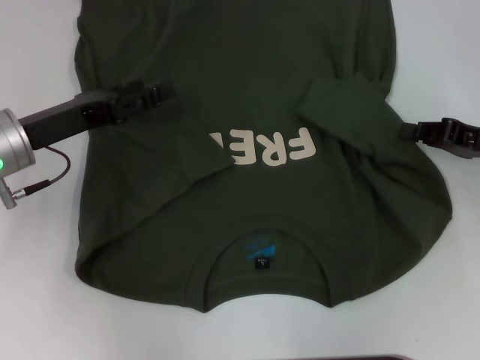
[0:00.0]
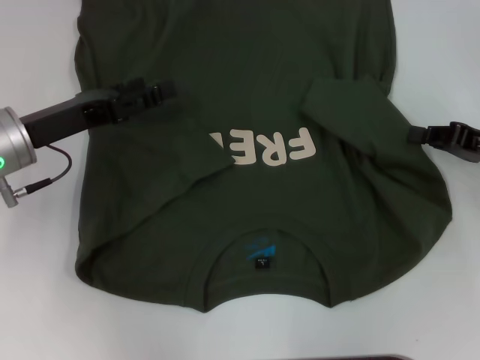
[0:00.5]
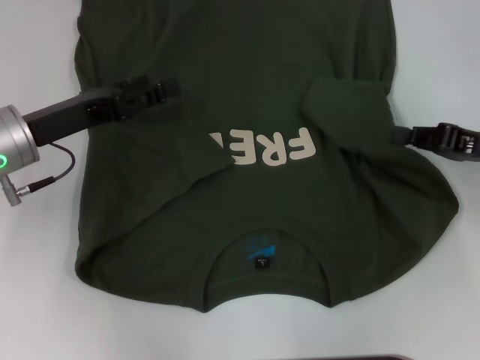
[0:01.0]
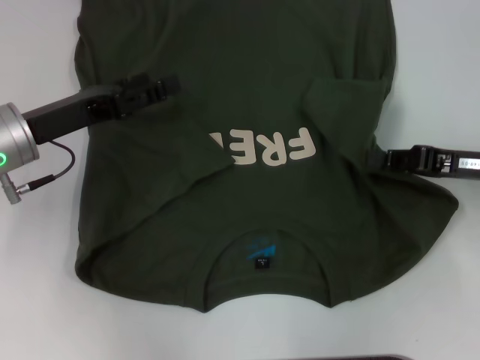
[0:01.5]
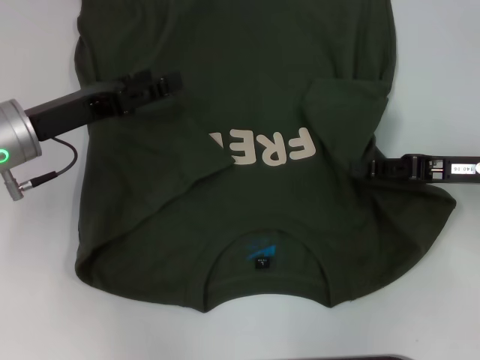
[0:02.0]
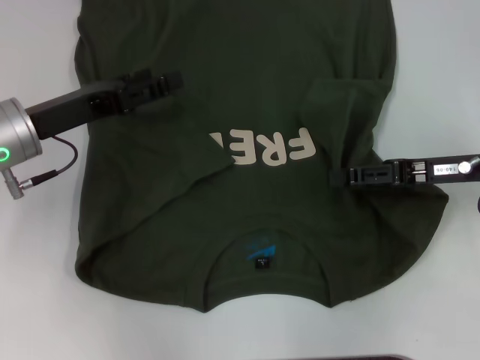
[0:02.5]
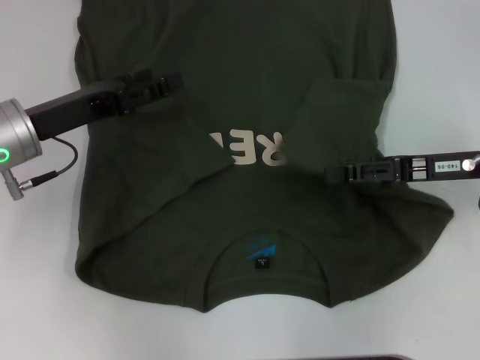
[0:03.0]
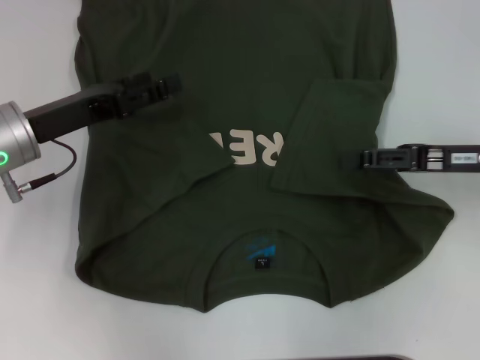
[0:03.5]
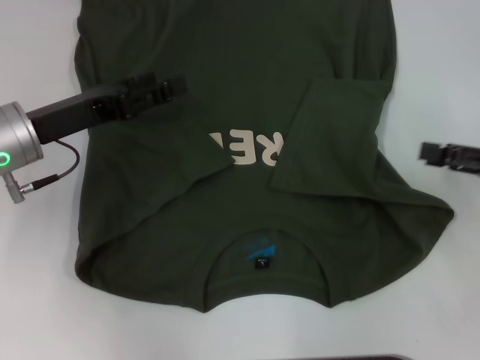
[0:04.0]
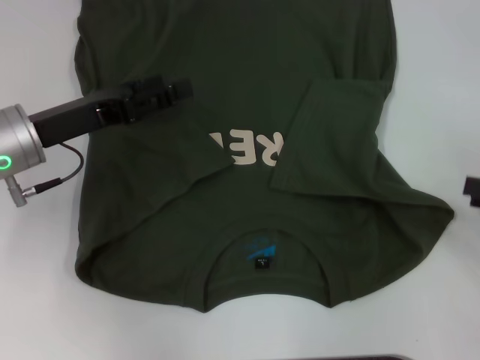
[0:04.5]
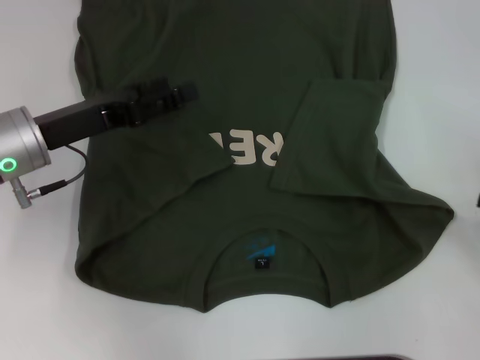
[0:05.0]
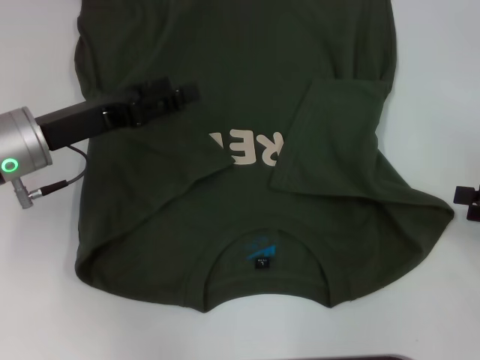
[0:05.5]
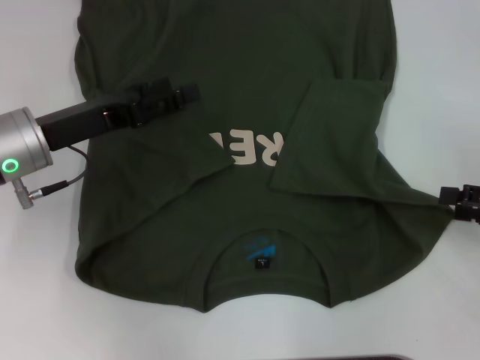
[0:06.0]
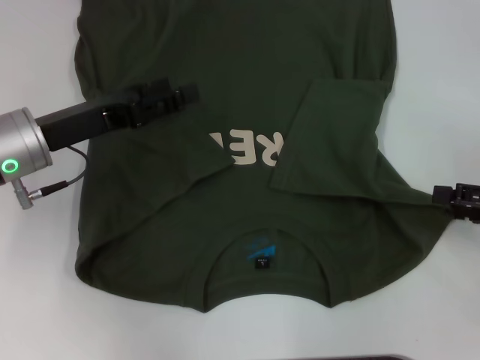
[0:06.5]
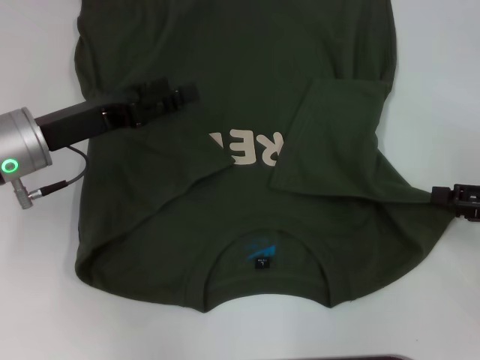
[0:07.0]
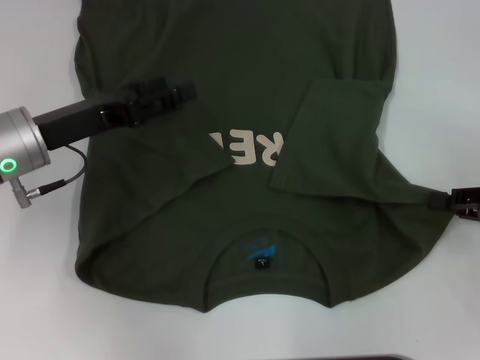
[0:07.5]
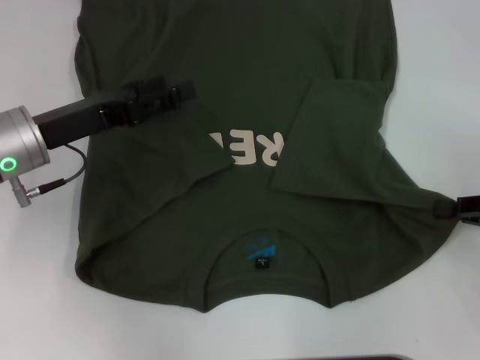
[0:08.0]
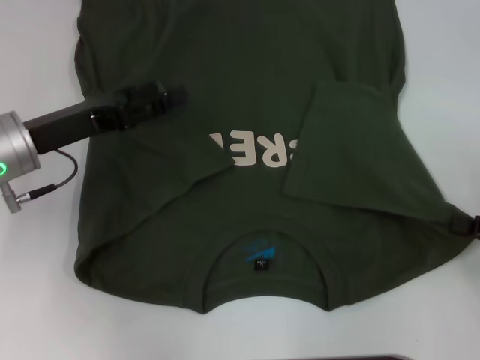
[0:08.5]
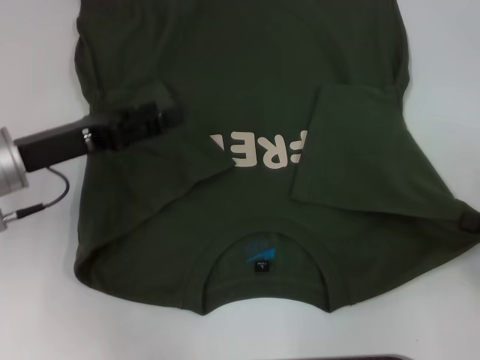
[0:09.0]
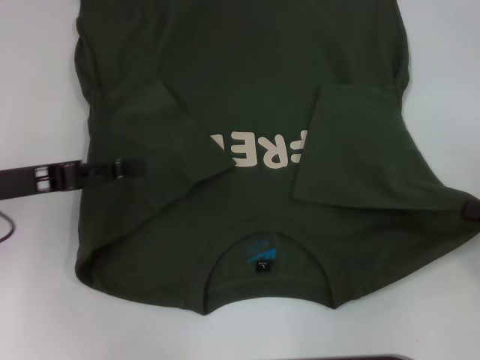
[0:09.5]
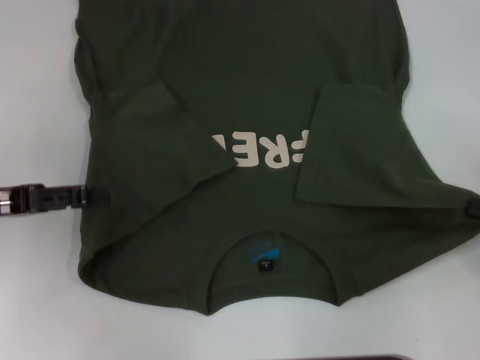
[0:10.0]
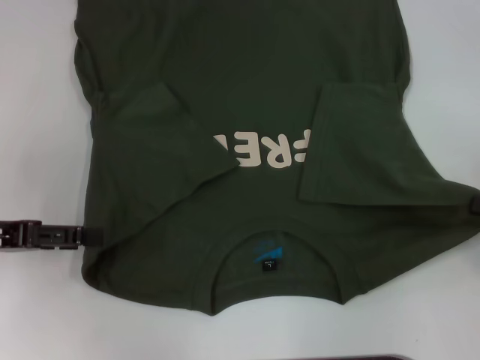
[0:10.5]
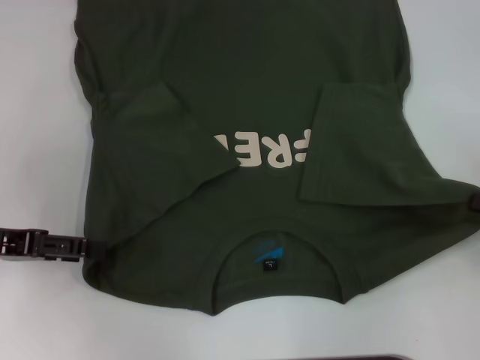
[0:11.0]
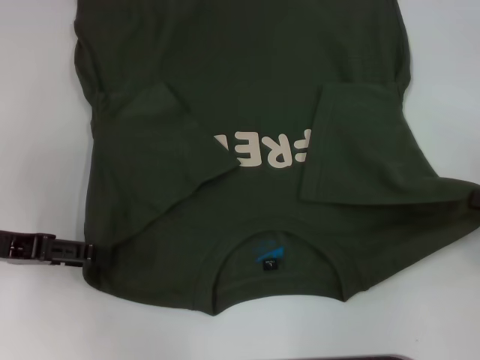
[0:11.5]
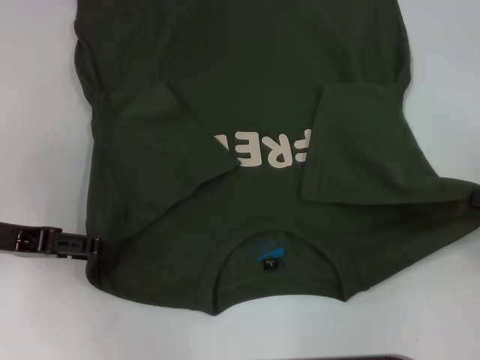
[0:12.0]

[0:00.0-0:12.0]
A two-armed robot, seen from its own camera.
Step, 0:00.0 to 0:03.0: Fold the bottom right sleeve with your right hand.
Step, 0:03.5 to 0:07.5: Grab the bottom right corner with your right hand.
0:00.0 to 0:02.0: The grippers make only small movements.
0:02.0 to 0:04.0: The right gripper moves to the right, about 5 cm, and opens its fingers.
0:06.0 to 0:08.0: The right gripper closes up.
0:08.0 to 0:10.0: The left gripper shifts about 10 cm to the left and backward.
0:10.0 to 0:12.0: The grippers move only a little.

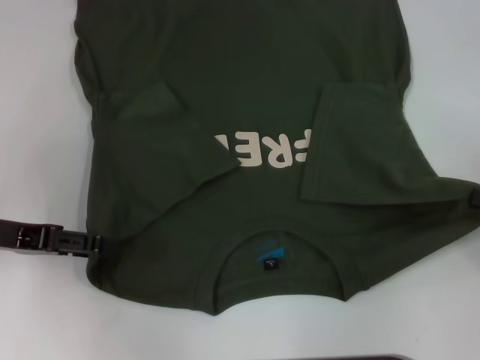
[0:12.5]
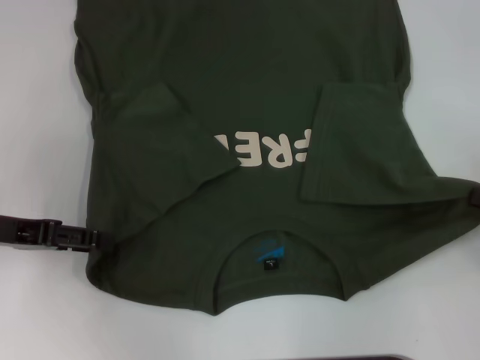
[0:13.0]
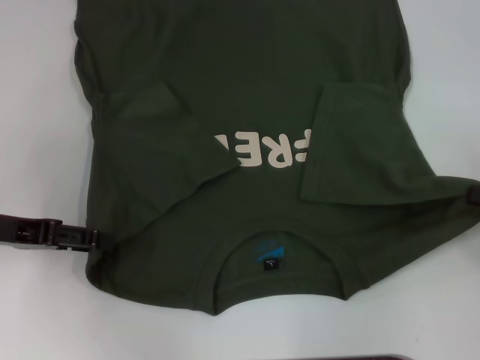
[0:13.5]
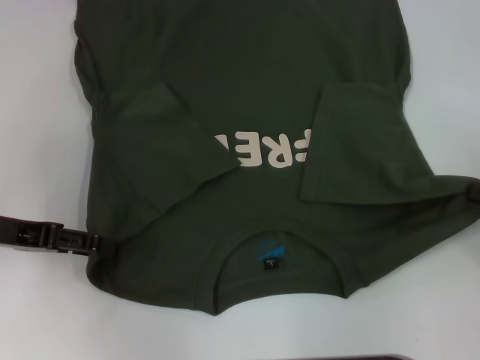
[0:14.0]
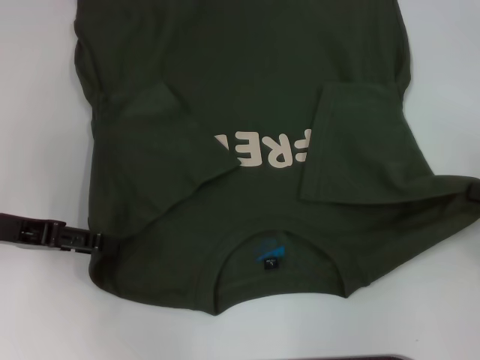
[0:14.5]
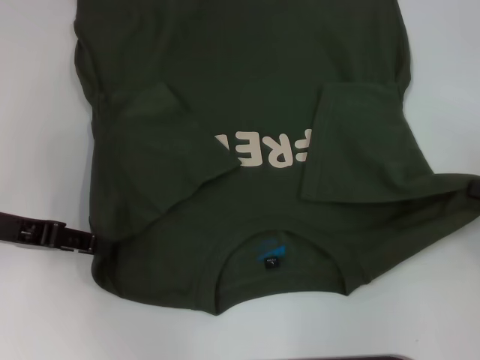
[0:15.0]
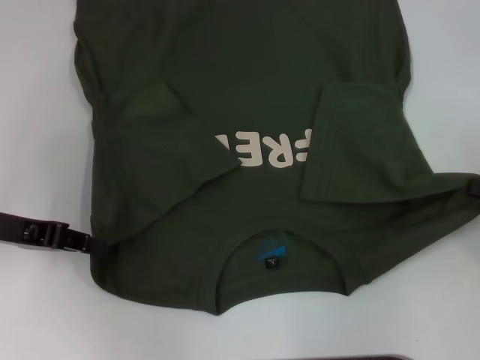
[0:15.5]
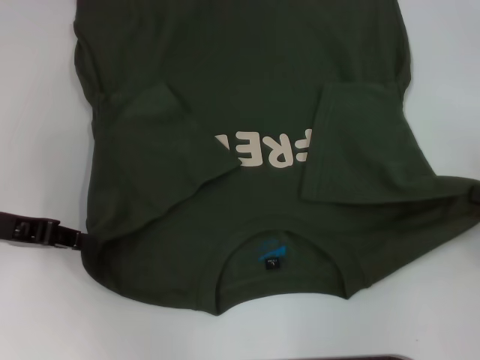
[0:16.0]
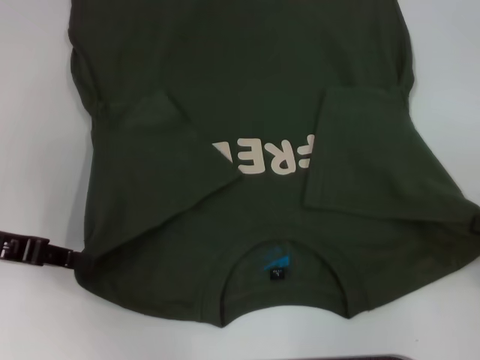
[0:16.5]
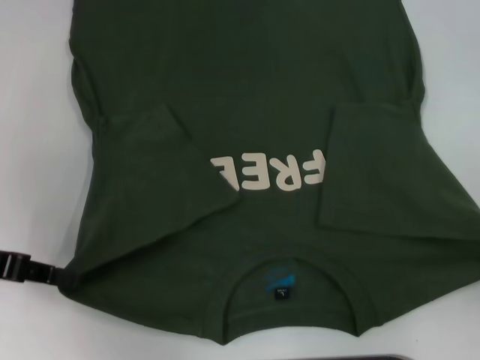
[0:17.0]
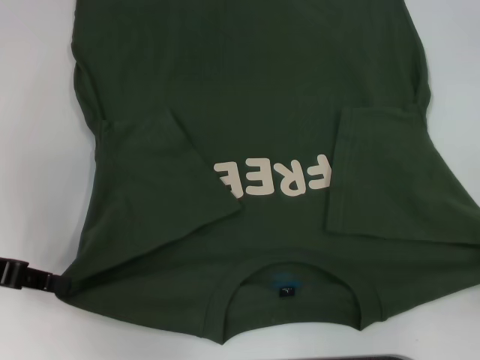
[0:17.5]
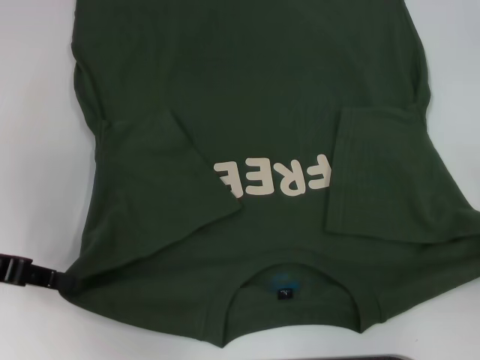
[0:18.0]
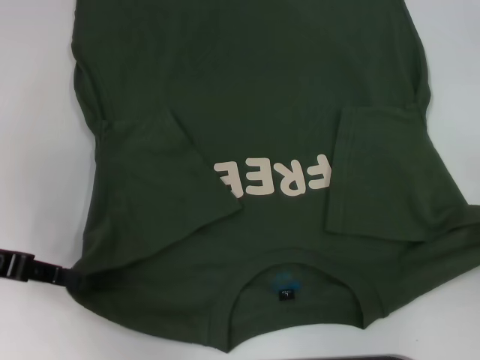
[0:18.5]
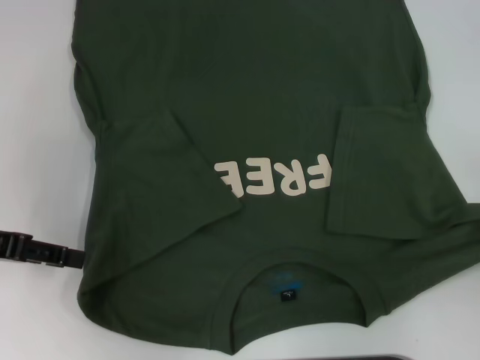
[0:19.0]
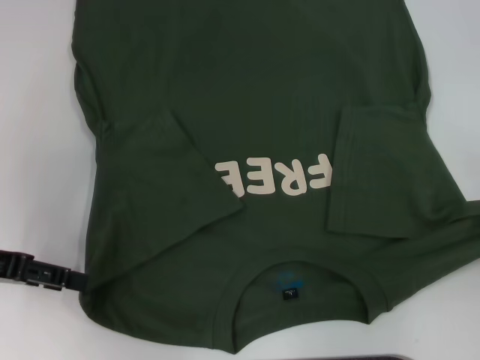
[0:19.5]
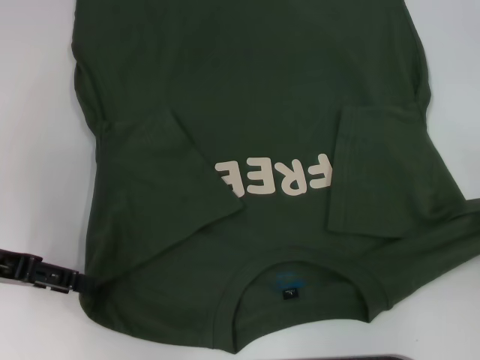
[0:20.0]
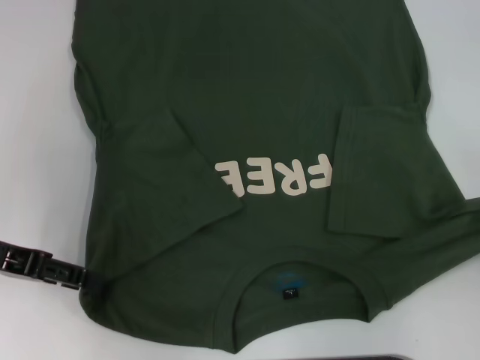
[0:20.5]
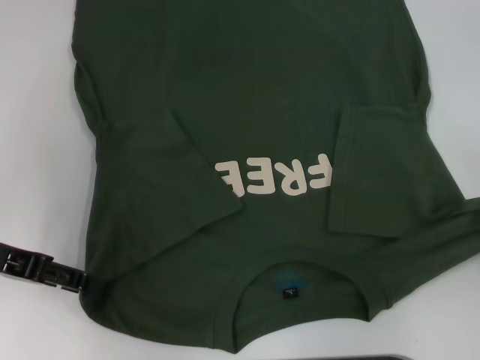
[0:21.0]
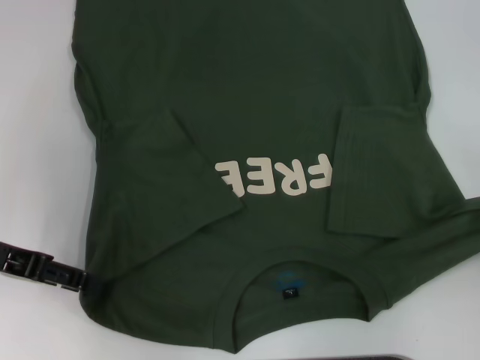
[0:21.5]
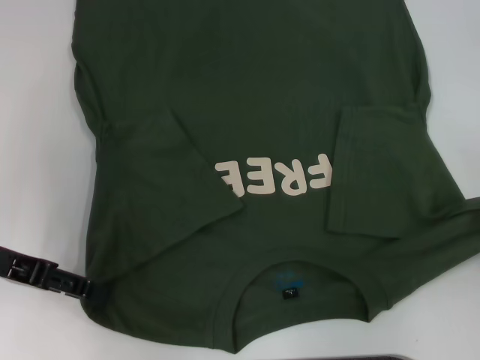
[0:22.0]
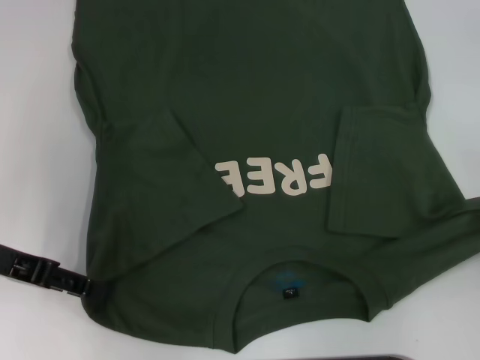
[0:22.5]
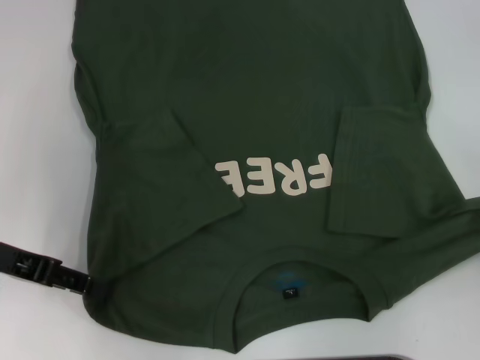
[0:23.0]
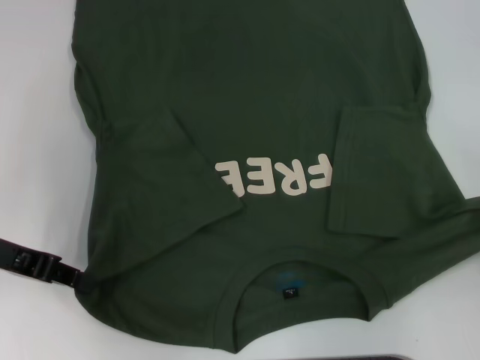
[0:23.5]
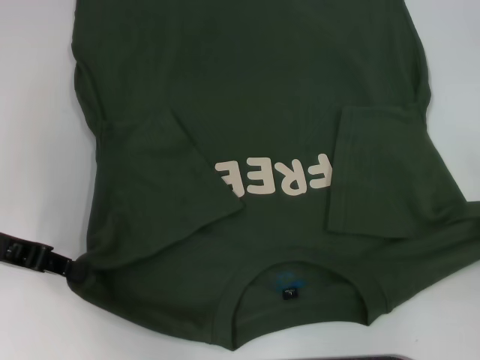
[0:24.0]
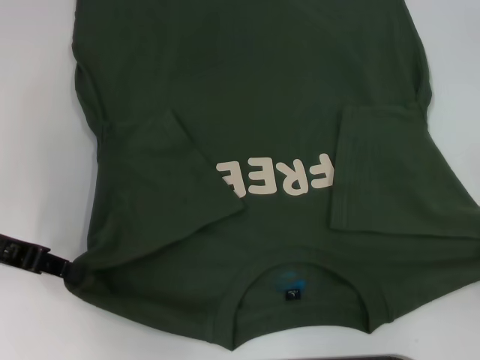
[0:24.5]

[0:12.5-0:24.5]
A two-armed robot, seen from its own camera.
Step, 0:12.5 to 0:16.0: Grab the bottom left corner with your left hand.
0:12.5 to 0:14.5: Both grippers stay put.
0:14.5 to 0:16.5: The left gripper closes.
0:16.5 to 0:18.5: The grippers move only a little.
0:18.5 to 0:20.5: The left gripper opens its fingers.
0:20.5 to 0:22.5: Both grippers stay about where they are.
0:22.5 to 0:24.5: The left gripper closes up.

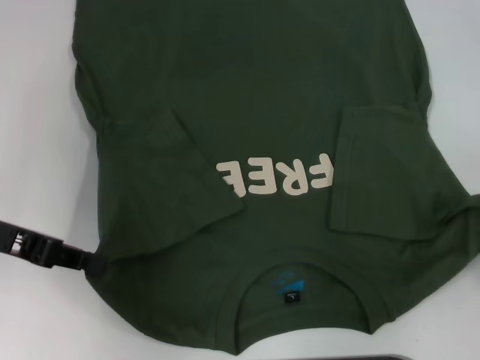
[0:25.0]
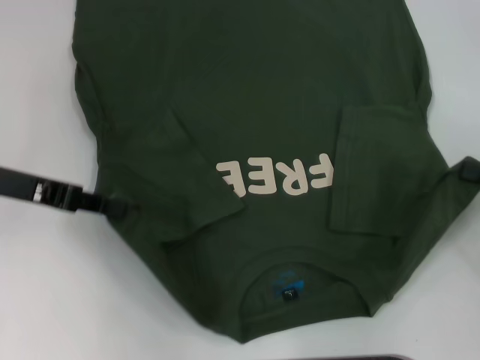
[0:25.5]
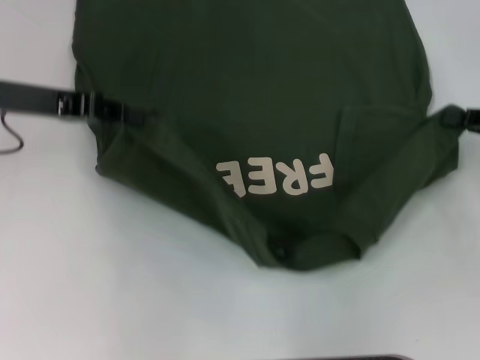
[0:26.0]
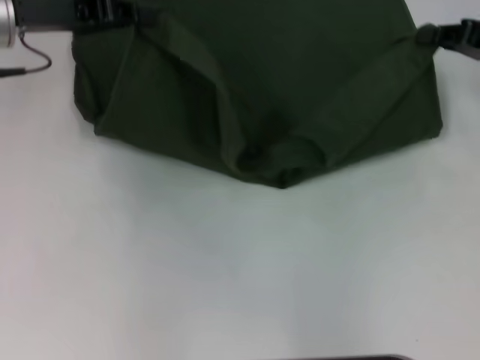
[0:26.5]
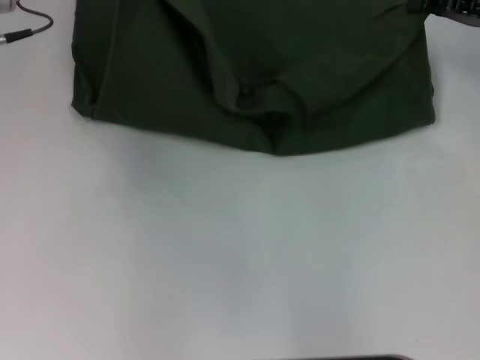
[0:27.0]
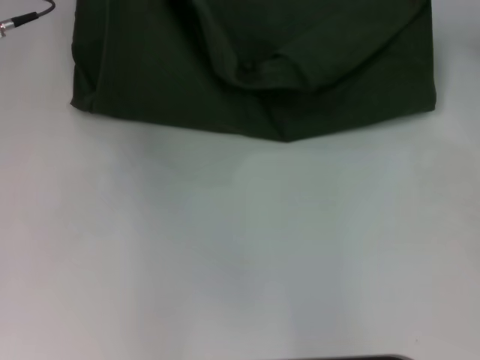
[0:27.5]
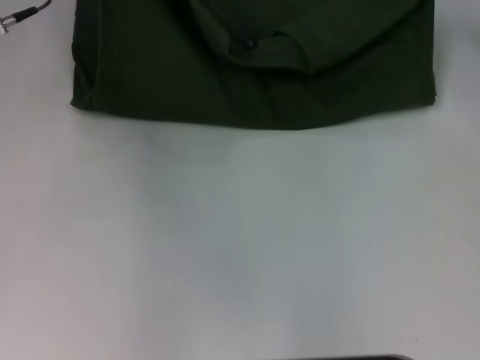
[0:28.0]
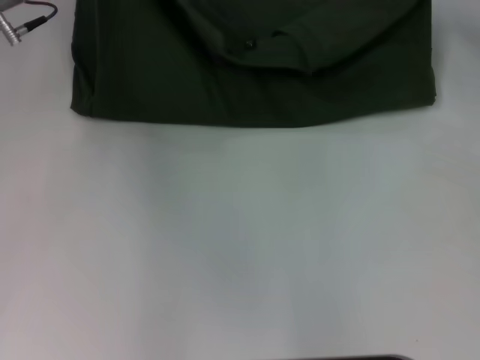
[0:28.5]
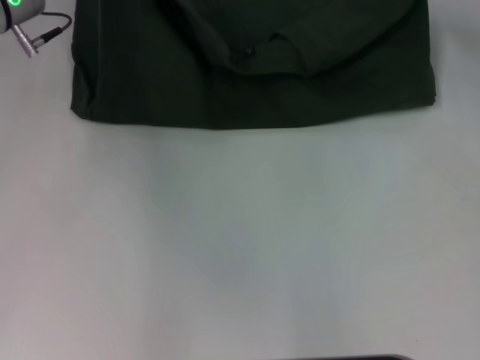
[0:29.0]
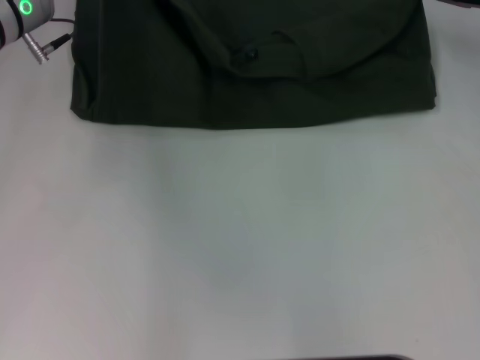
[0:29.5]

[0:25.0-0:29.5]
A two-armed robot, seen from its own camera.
0:25.0 to 0:27.0: The left gripper heads forward and upward, covering some 15 cm. Meanwhile the right gripper travels forward by roughly 20 cm.
0:27.0 to 0:29.5: The left gripper moves roughly 5 cm.
